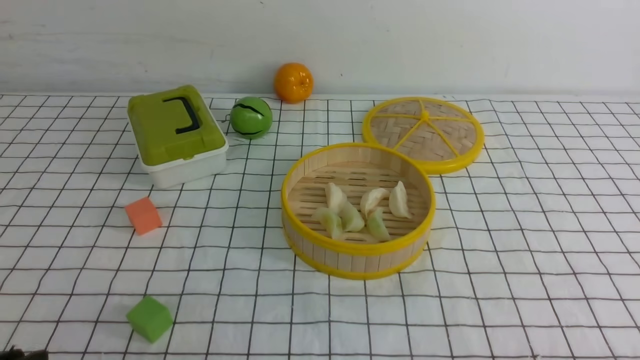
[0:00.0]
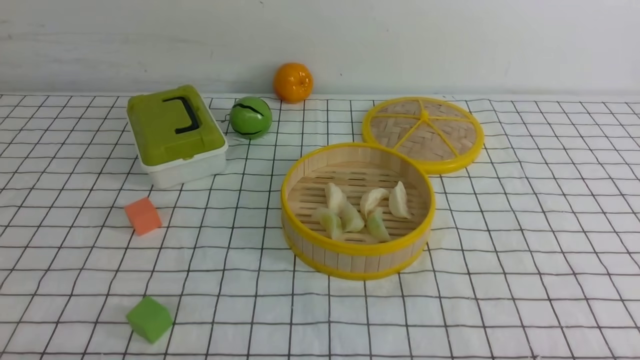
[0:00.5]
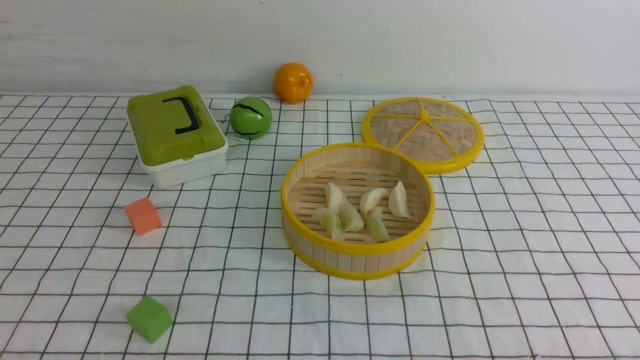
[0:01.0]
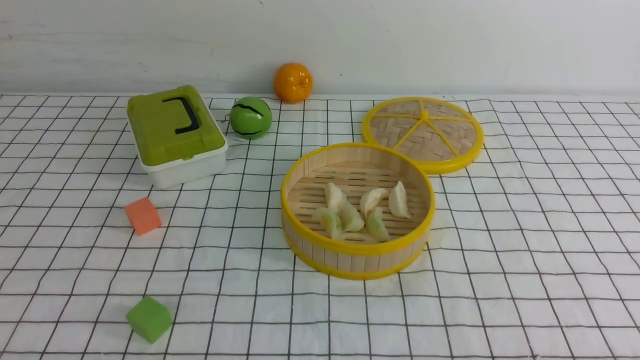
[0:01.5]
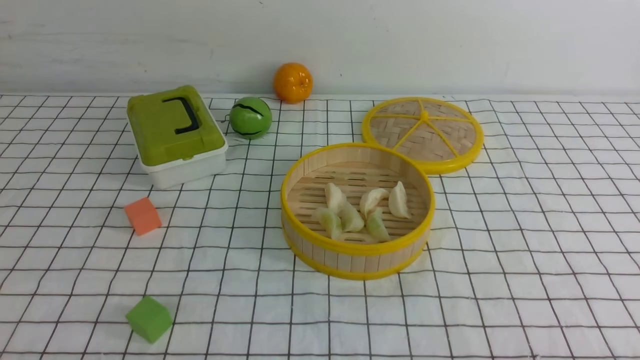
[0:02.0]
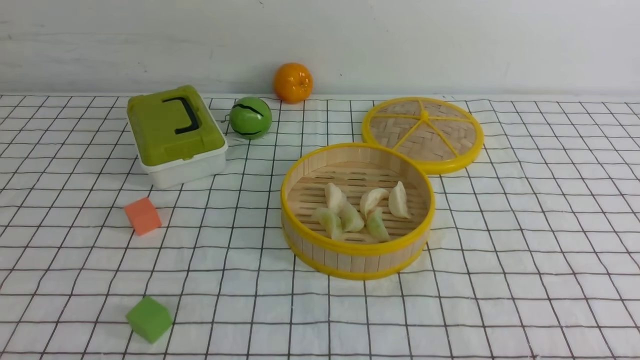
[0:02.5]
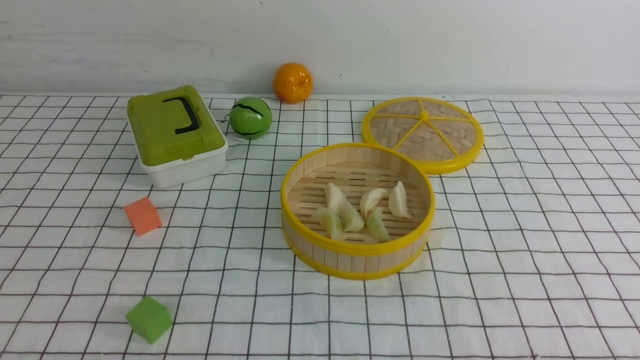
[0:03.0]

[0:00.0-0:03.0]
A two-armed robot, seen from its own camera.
Task of the whole recording: put the dumplings into the steamer on the table with the white tablecloth.
0:01.5 to 0:03.0: Both grippers stay about where they are.

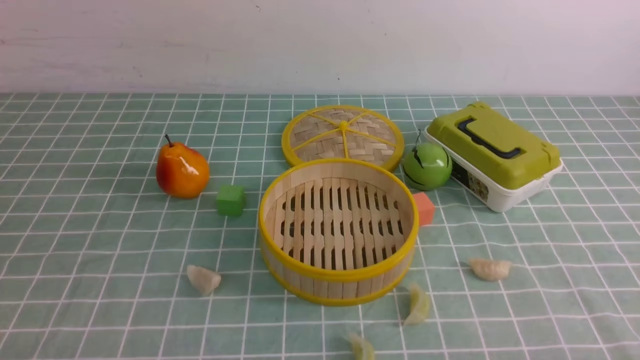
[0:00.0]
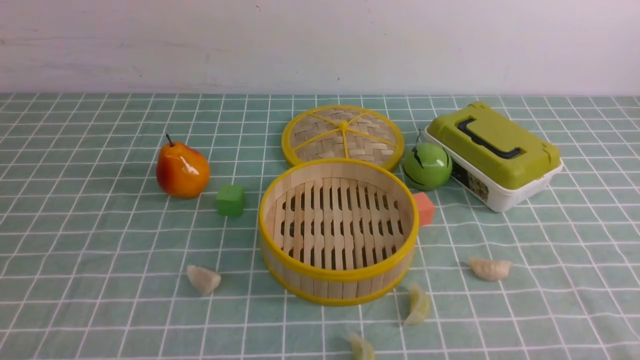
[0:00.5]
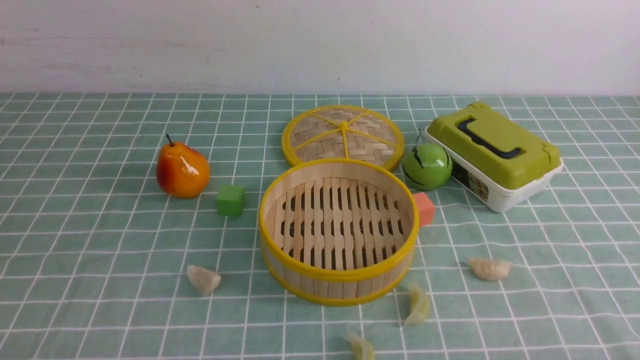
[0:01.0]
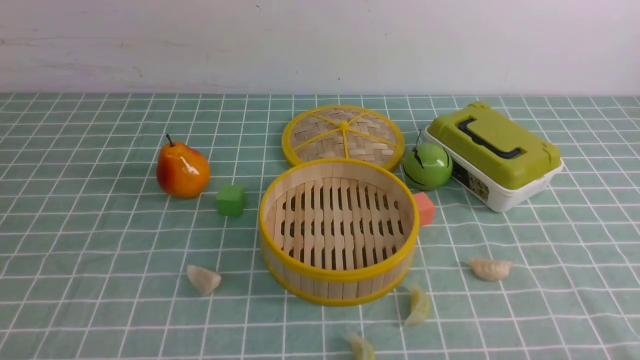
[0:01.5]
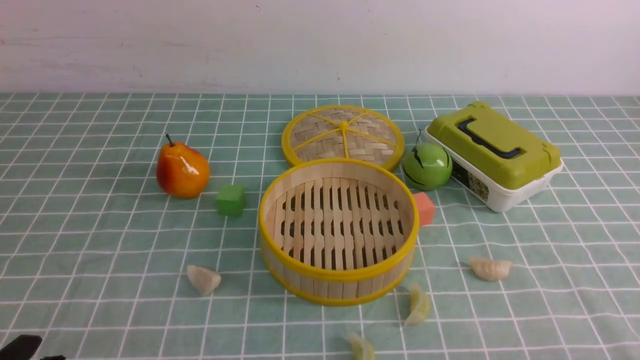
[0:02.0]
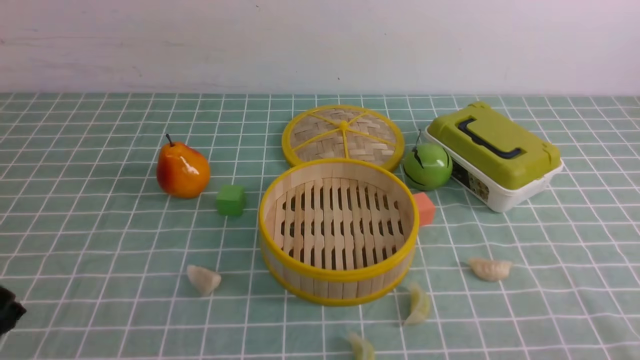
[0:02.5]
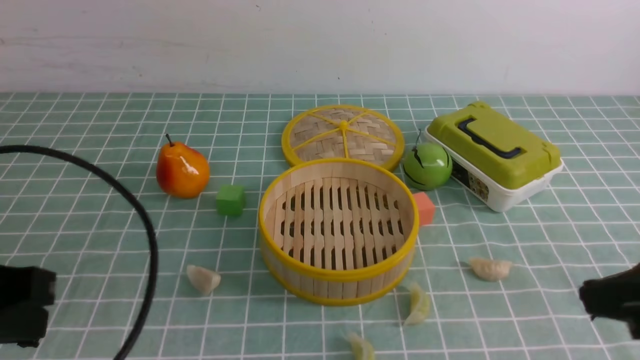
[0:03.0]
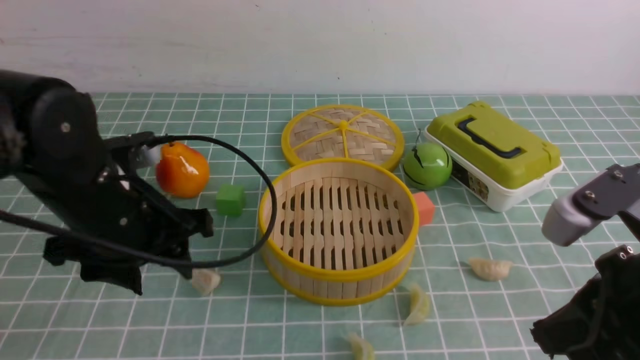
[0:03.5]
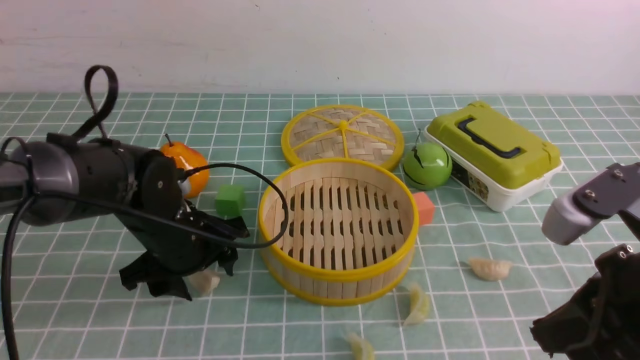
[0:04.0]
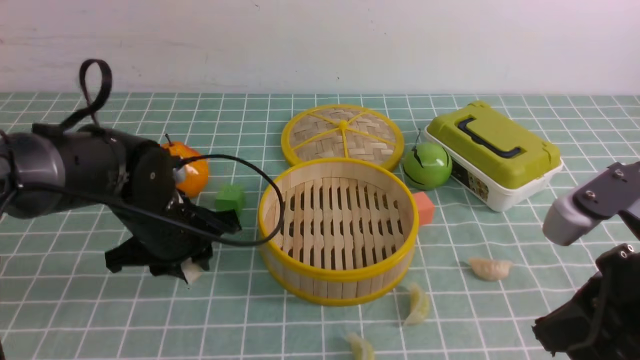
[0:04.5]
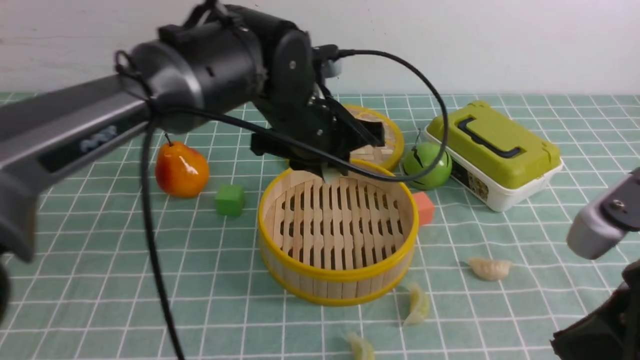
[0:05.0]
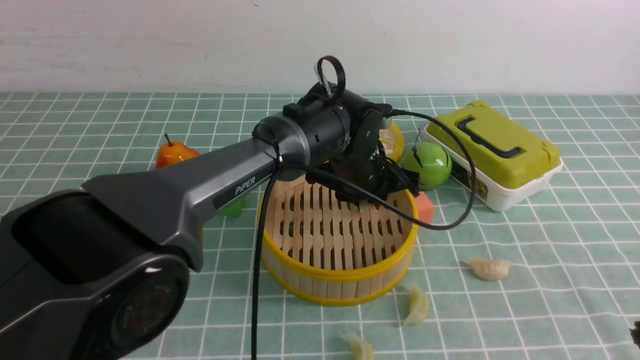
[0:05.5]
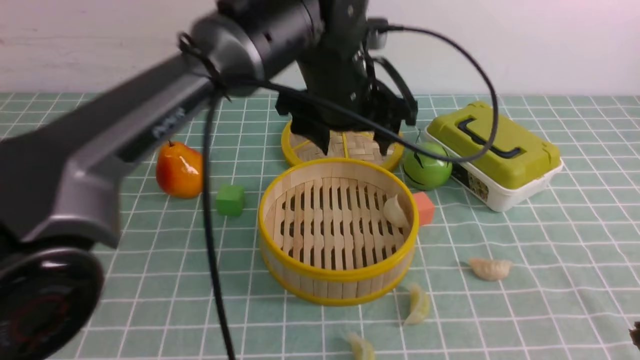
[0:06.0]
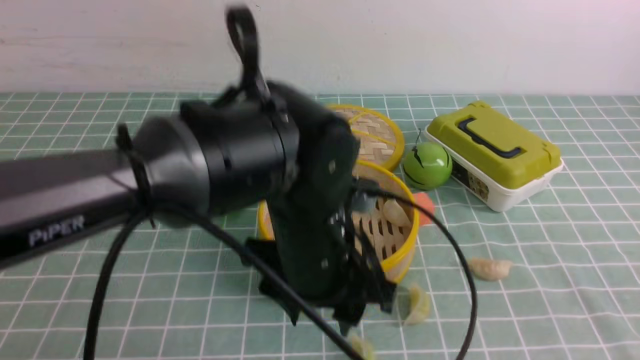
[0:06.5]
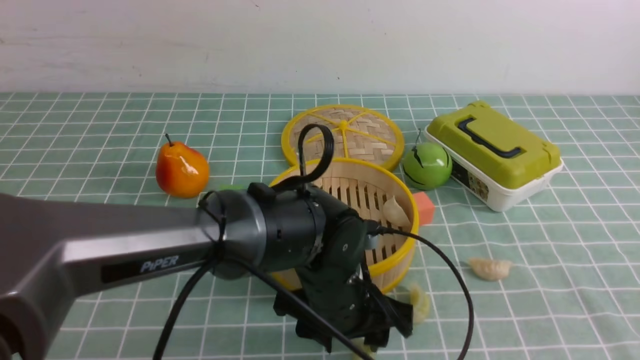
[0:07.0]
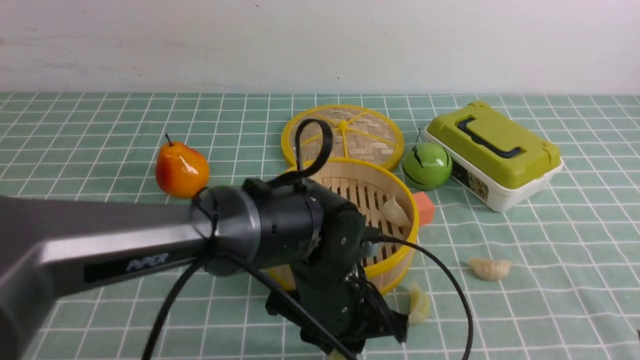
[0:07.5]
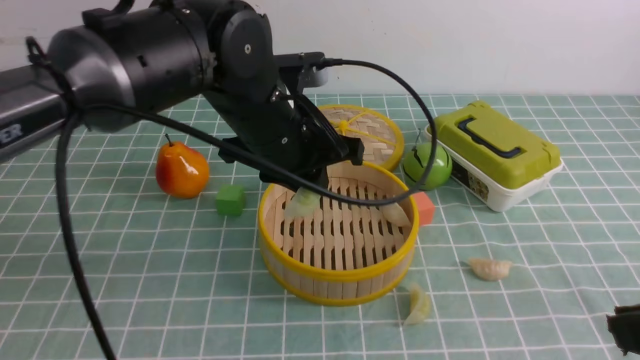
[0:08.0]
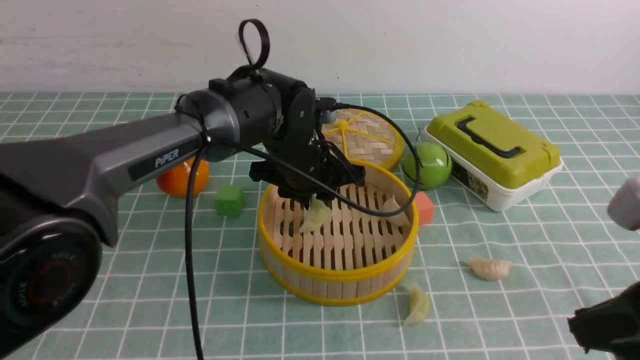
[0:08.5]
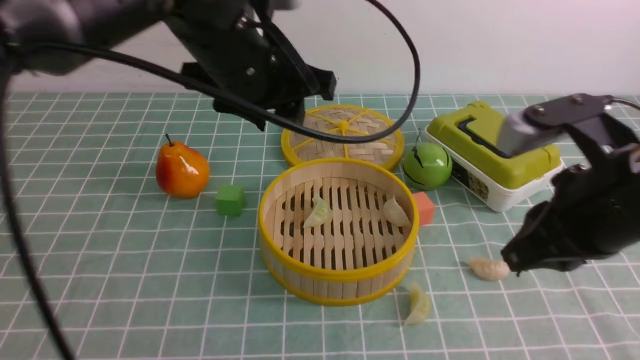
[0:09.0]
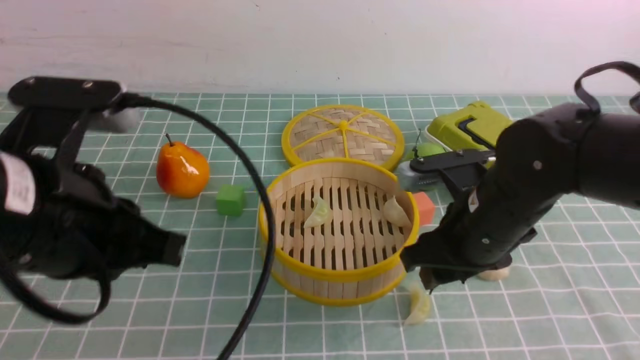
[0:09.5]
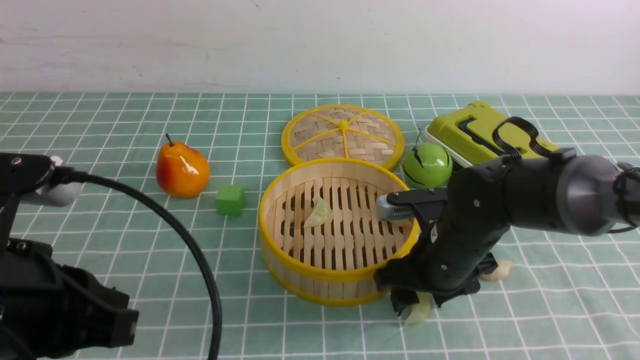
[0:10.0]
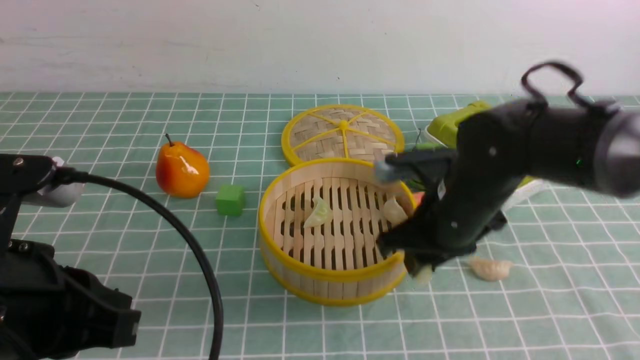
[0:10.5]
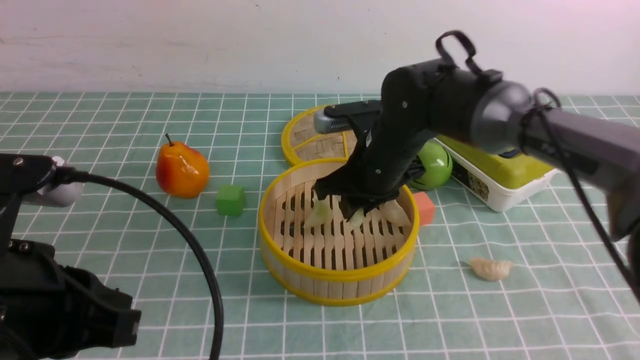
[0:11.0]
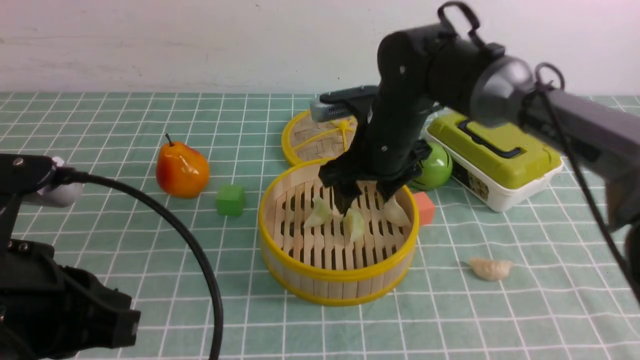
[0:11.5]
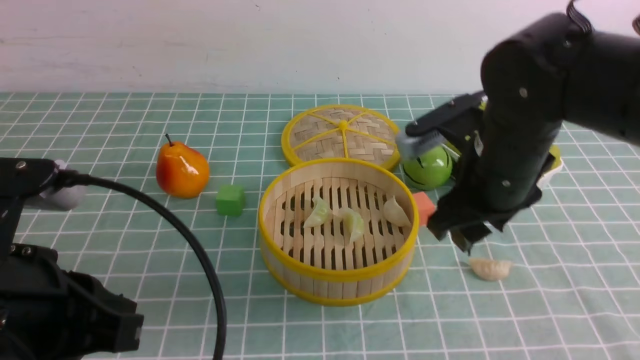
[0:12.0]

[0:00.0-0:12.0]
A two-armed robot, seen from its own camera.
Task of the whole recording: put the dumplings into the steamer on the table with the blue tablecloth.
Step, 0:00.0 to 0:04.0: use the left arm to grab a dumpling.
Step, 0:04.5 to 0:05.5: use the left arm to put the dumpling into the steamer.
Step, 0:06.0 to 0:07.0: use the left arm to grab a dumpling.
Step, 0:07.5 to 0:08.5: use the left arm to put the dumpling into the steamer.
Step, 0:09.0 to 0:10.0: use the right arm to grab a dumpling.
Step, 0:10.5 to 0:11.5: use the right arm to put the dumpling into the steamer.
0:02.0 to 0:04.0: The left gripper moves forward, about 30 cm, and opens; the right gripper moves upward, forward and to the left, approximately 20 cm, and closes.
0:04.0 to 0:06.0: The left gripper travels to the right and upward by about 25 cm, and closes, then opens again, while the right gripper travels backward by approximately 5 cm.
0:06.0 to 0:08.0: The left gripper travels downward and back again, approximately 15 cm each way, and closes.
0:08.0 to 0:10.0: The left gripper is displaced backward and to the left by some 25 cm. The right gripper moves forward, downward and to the left, approximately 30 cm, and opens its fingers.
0:10.0 to 0:12.0: The right gripper heads upward, covering roughly 10 cm, and closes and opens again.

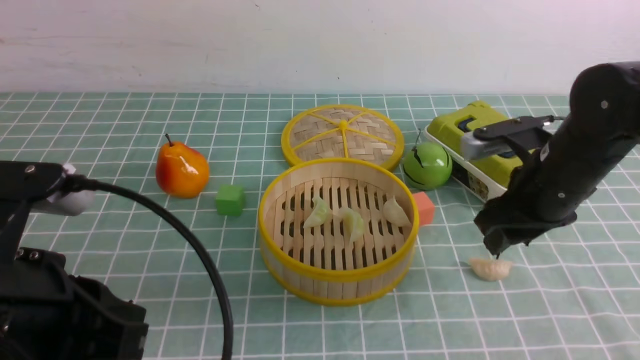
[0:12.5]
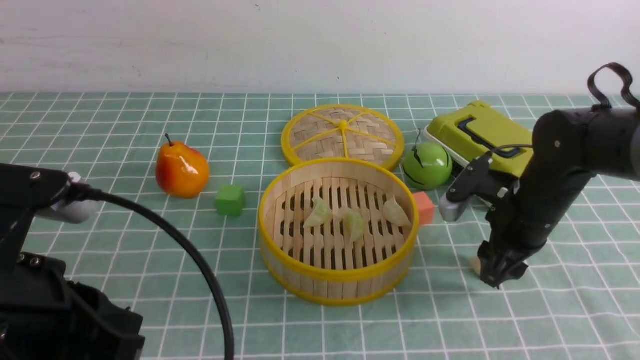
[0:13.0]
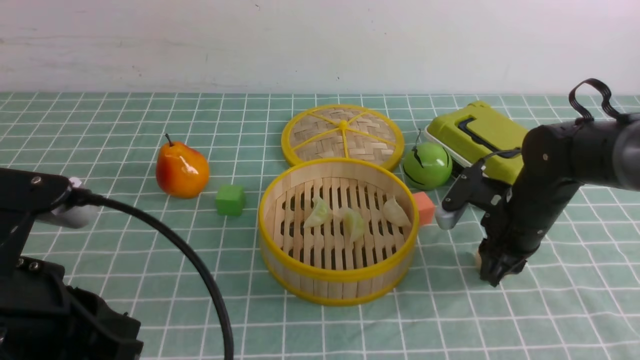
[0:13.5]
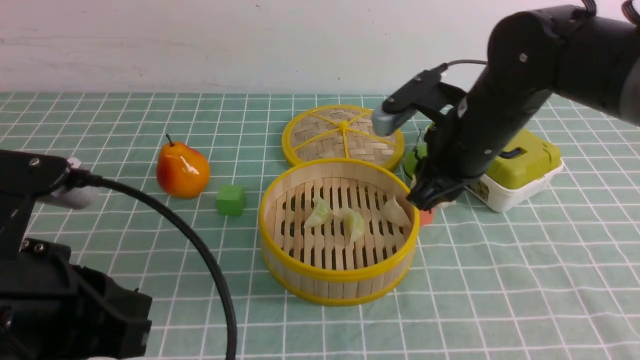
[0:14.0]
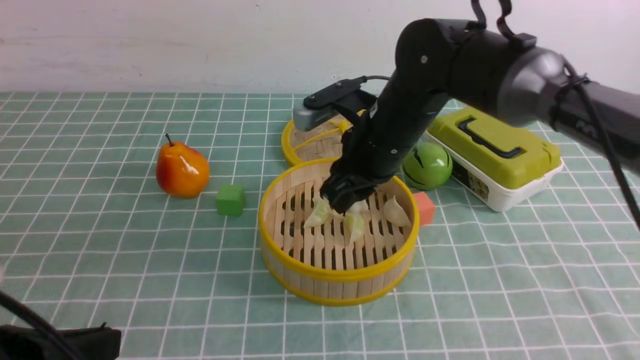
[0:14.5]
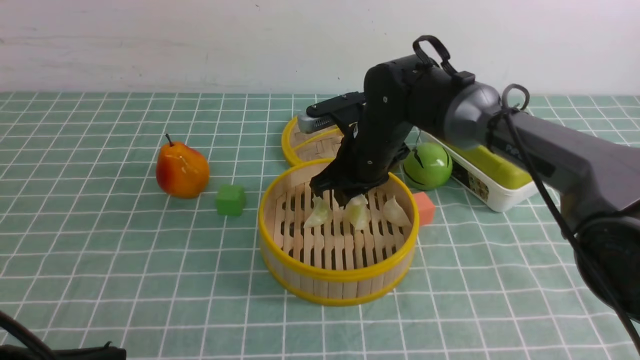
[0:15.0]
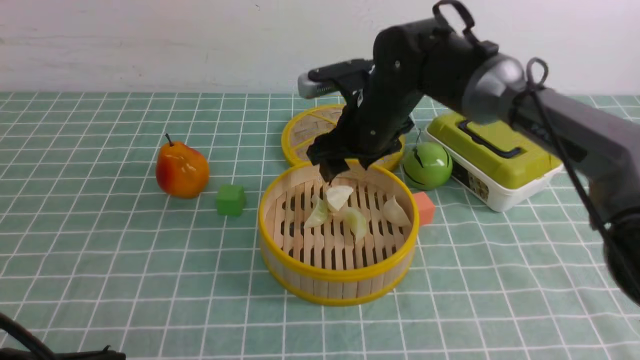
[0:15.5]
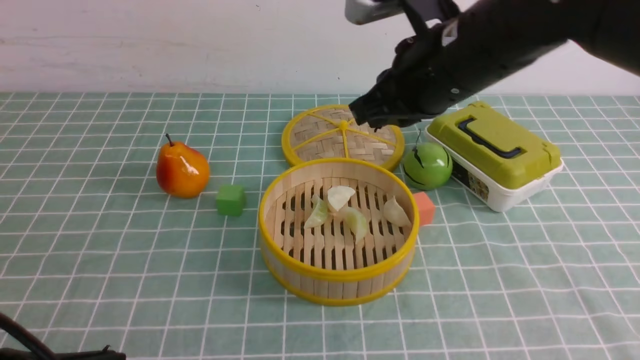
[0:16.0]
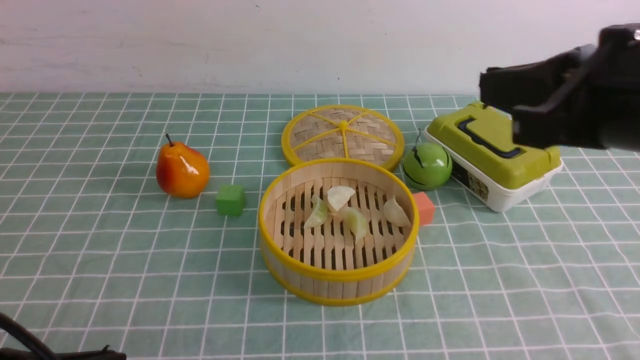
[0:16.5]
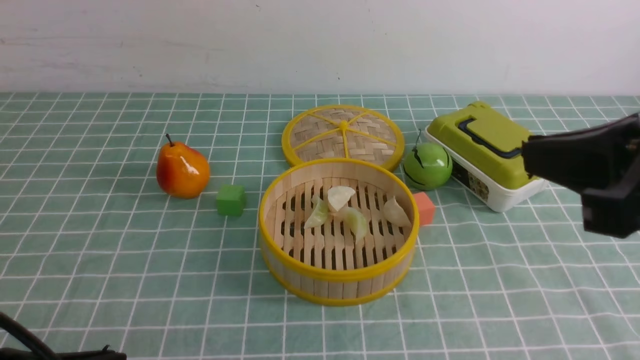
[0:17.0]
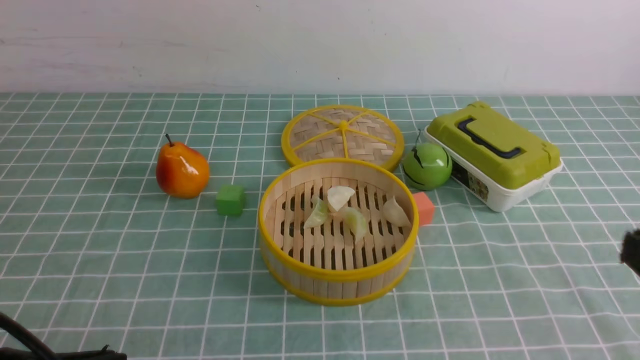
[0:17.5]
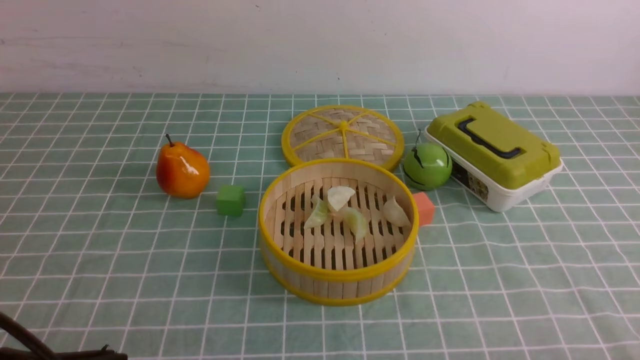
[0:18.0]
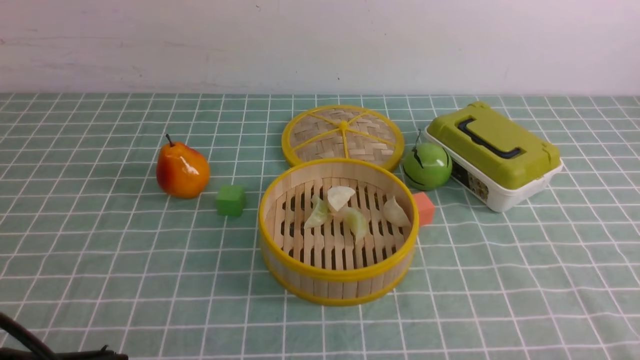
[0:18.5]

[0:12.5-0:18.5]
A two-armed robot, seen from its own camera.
Task of the whole recording: put the dumplings into the steamer on the table with the blue tablecloth.
Step, 0:13.5 to 0:15.5: use the right arm to put the dumpling into the steamer.
0:12.5 to 0:14.5: The left gripper moves about 5 cm, while the right gripper shifts some 15 cm to the left, and closes.
0:14.5 to 0:16.5: The right gripper moves backward, upward and to the right, approximately 25 cm, and closes its fingers.
0:16.5 to 0:18.5: The right gripper shifts about 30 cm downward, backward and to the right.
